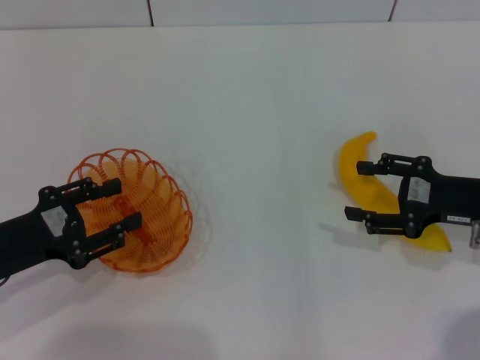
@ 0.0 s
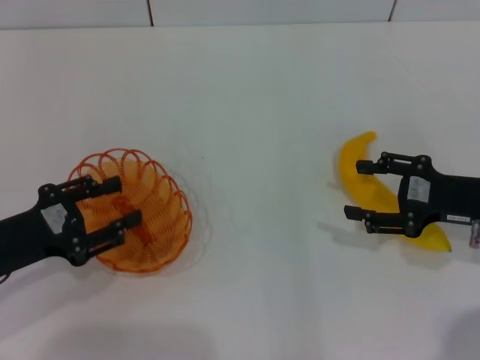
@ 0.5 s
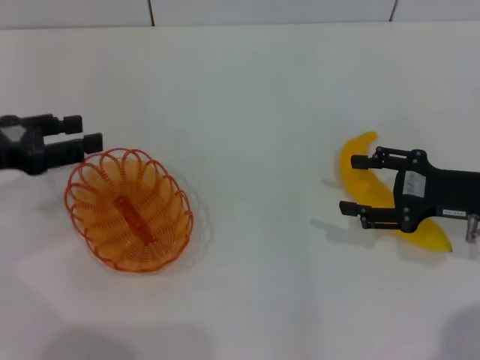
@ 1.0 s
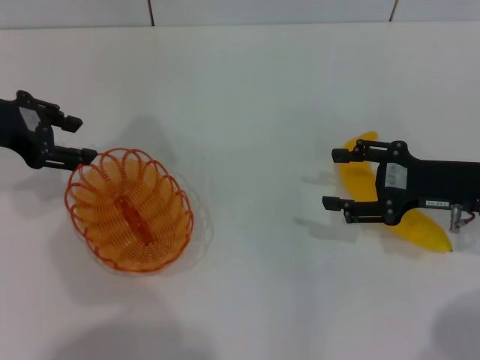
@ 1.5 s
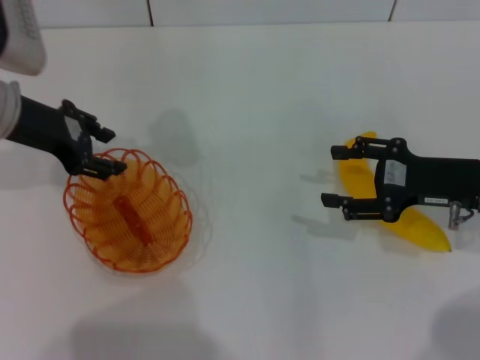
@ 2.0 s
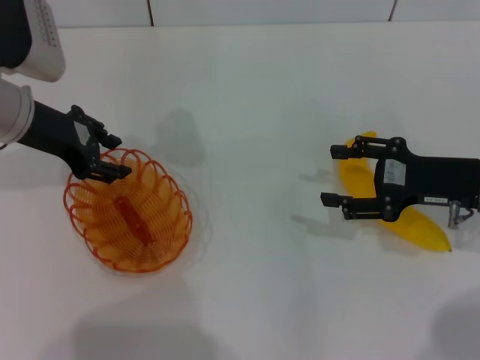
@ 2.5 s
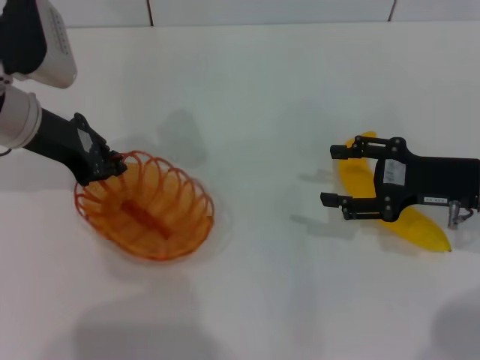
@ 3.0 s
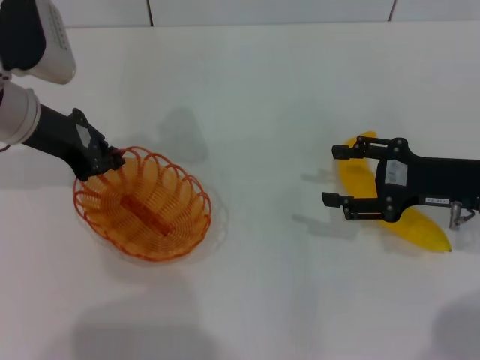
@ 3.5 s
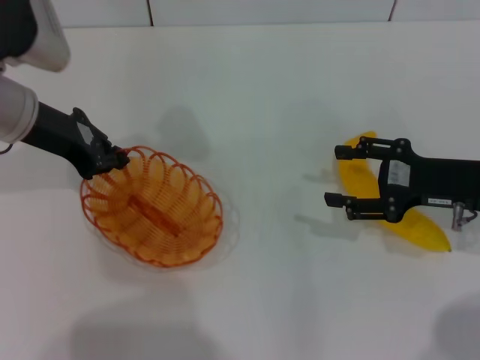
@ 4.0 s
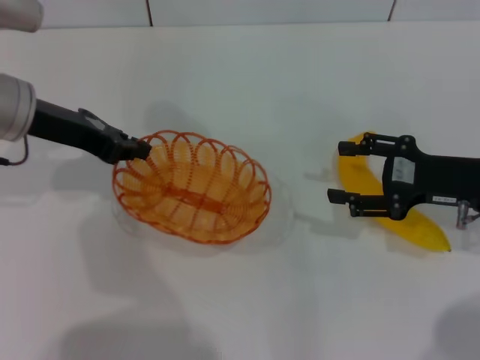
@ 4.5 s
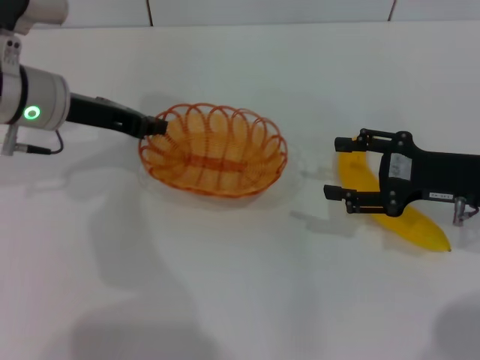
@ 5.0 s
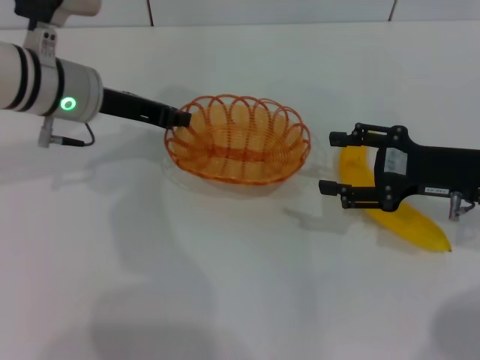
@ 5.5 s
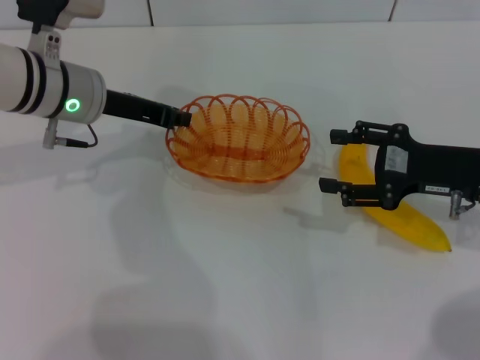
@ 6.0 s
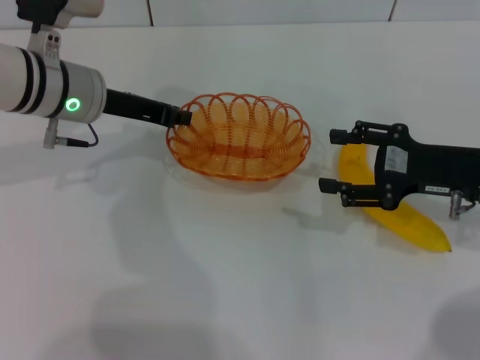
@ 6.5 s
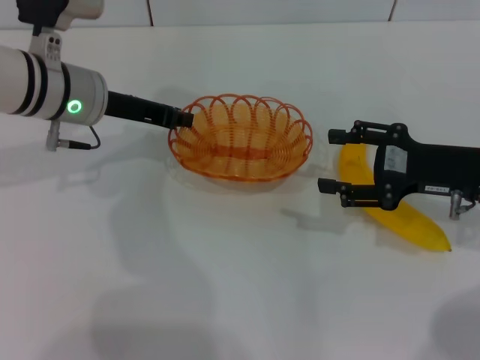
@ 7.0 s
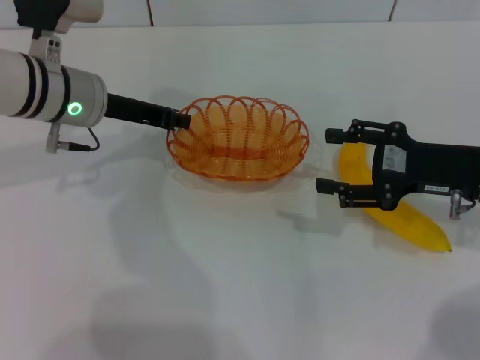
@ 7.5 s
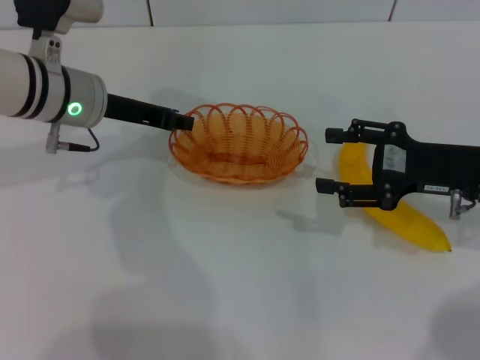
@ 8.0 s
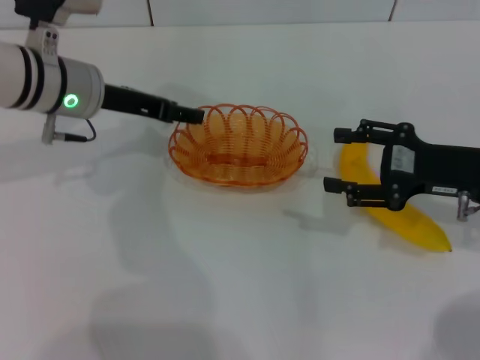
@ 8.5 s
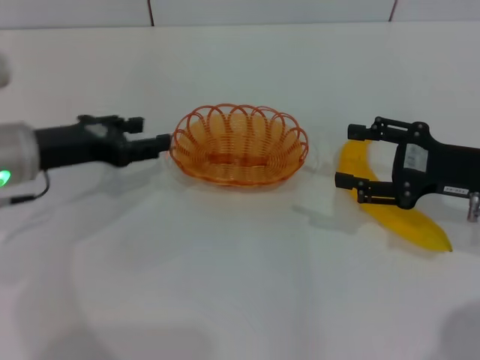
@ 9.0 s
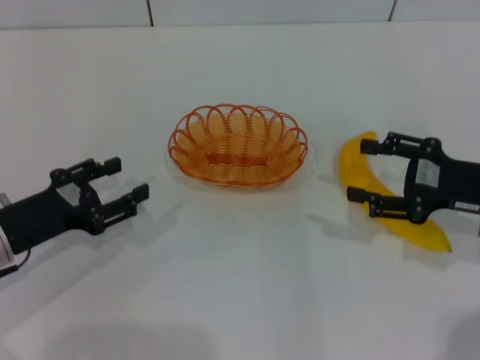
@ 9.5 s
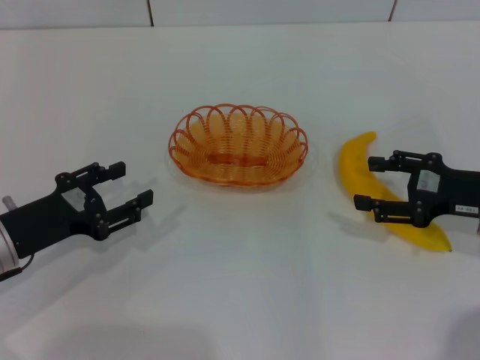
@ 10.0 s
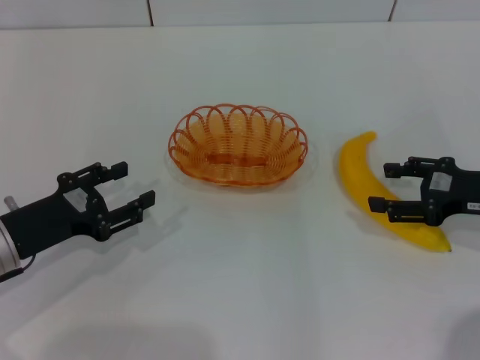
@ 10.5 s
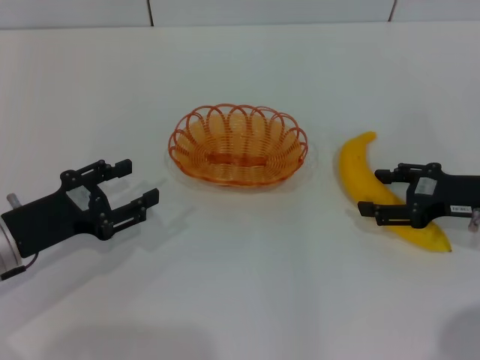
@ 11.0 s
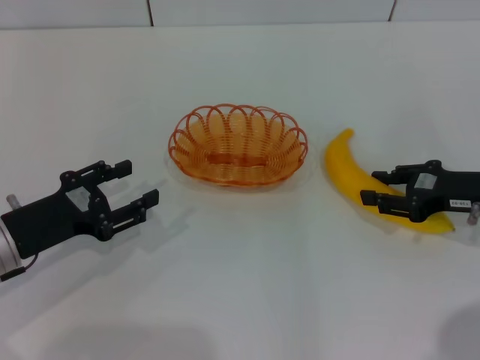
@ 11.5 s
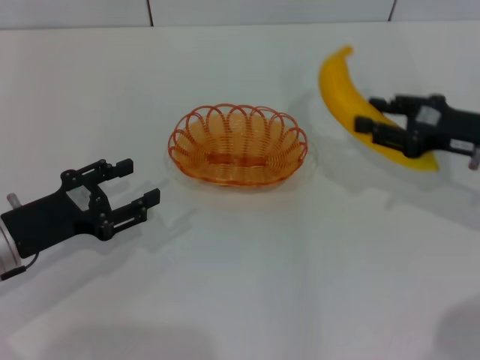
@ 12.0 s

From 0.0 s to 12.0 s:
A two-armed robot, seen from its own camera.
Step, from 0.0 s to 3.5 s: Pick up the basket with the left gripper.
Step, from 4.5 s to 8.5 s: Place the basket in the center of view with the left gripper.
Step, from 9.0 s to 11.5 s: Pick up the banana with the right gripper.
From 0.0 s to 2.0 s: The left gripper goes some 20 cm forward and upward.
From 2.0 s to 4.0 s: The left gripper closes up.
From 4.0 s to 6.0 s: The left gripper heads to the right, covering roughly 5 cm.
From 6.0 s to 8.0 s: Both grippers stay put.
From 8.0 s to 10.0 s: The left gripper moves backward, to the left and downward, approximately 20 cm, and opens up.
From 10.0 s to 12.0 s: The right gripper closes its fingers.

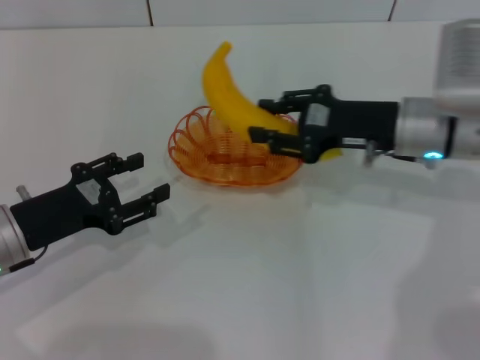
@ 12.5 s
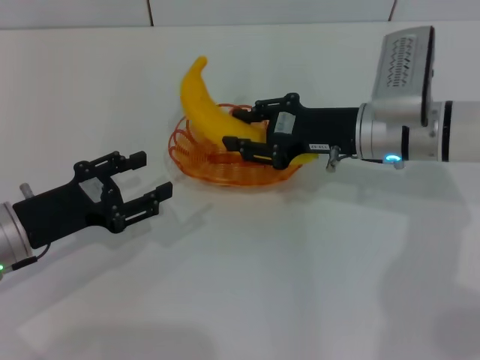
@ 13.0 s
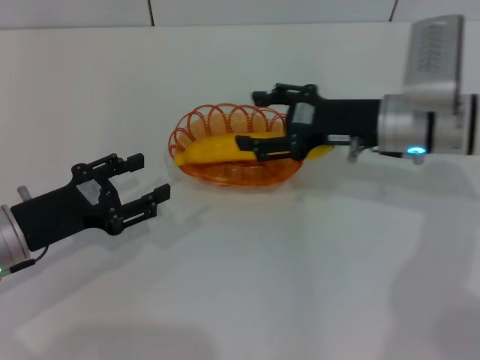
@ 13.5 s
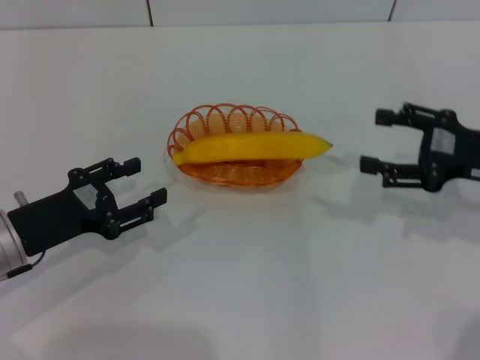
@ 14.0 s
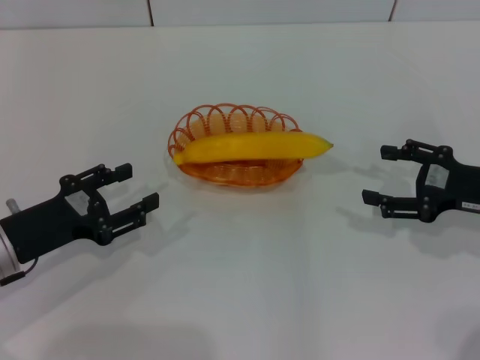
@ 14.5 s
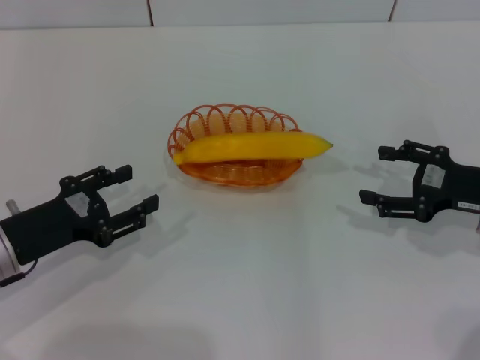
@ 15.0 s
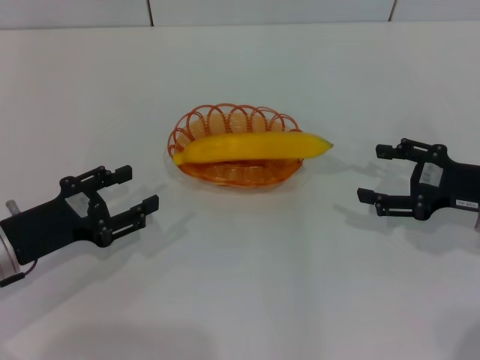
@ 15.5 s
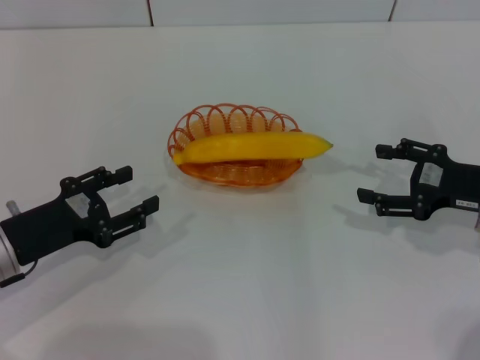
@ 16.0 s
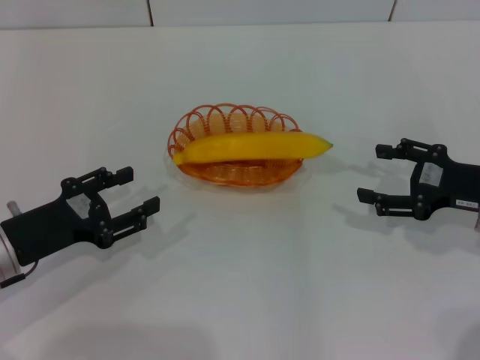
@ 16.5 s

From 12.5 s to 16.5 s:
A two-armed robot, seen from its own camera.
From 12.5 s to 14.5 s: The right gripper travels to the right and backward by about 15 cm, and opens its fingers.
From 14.5 s to 16.5 s: Both grippers stay about where they are.

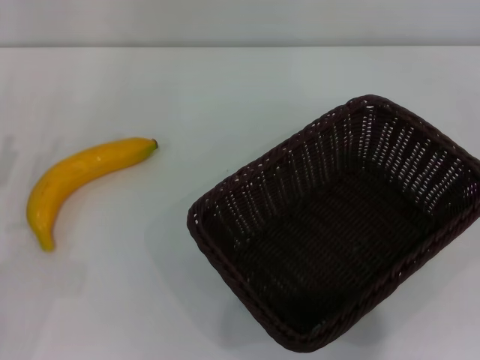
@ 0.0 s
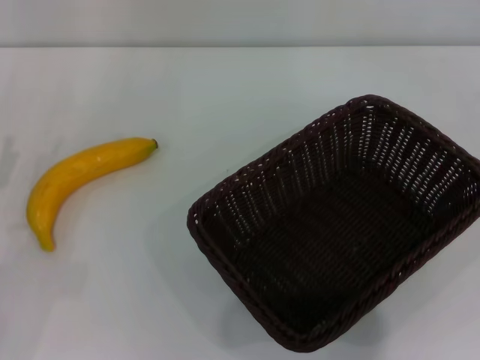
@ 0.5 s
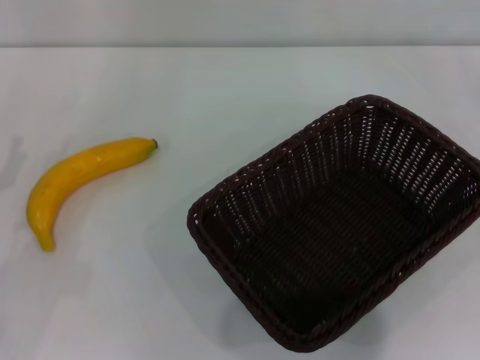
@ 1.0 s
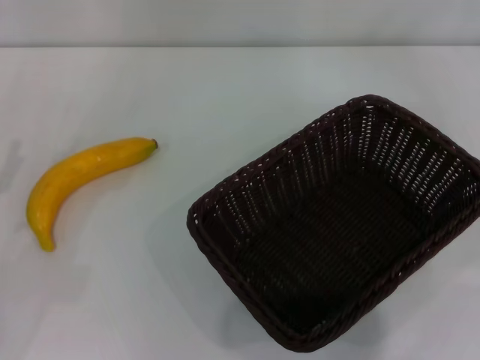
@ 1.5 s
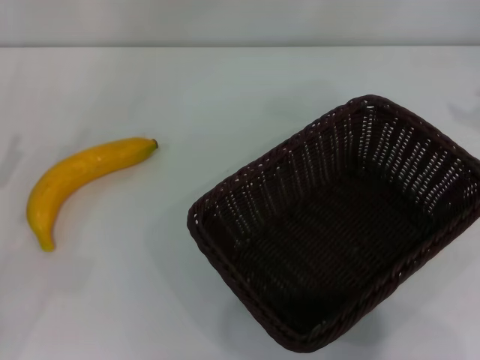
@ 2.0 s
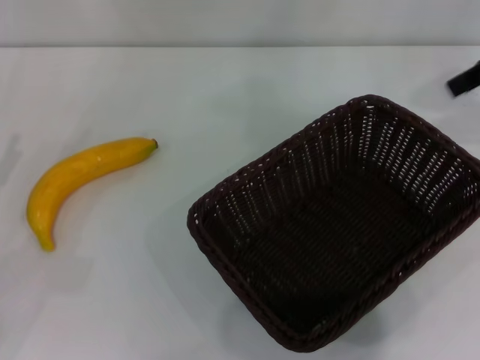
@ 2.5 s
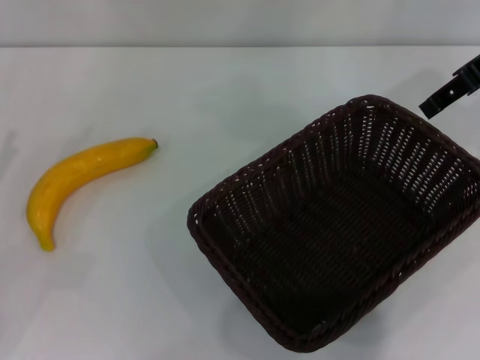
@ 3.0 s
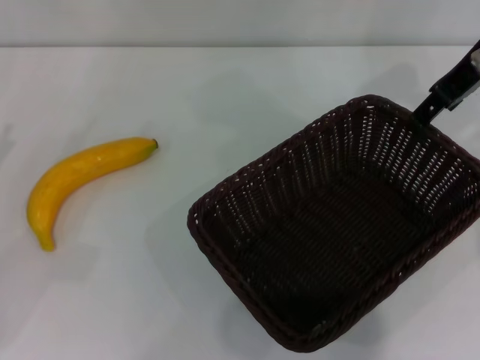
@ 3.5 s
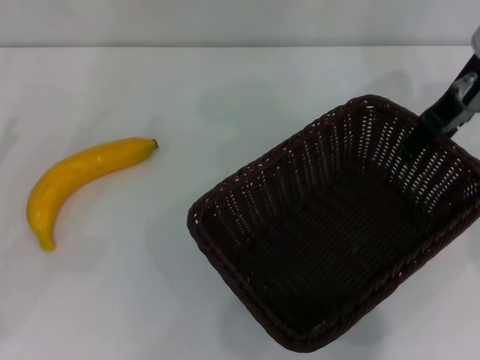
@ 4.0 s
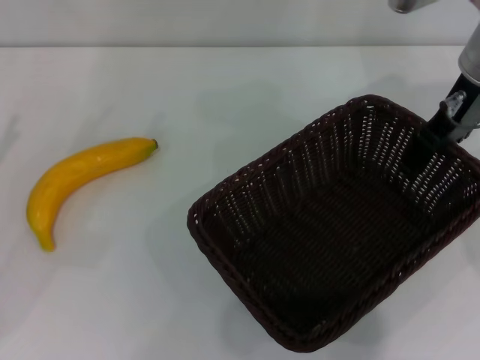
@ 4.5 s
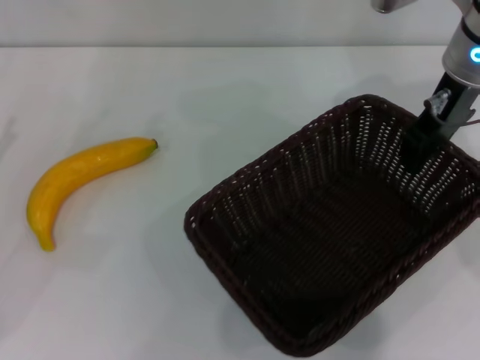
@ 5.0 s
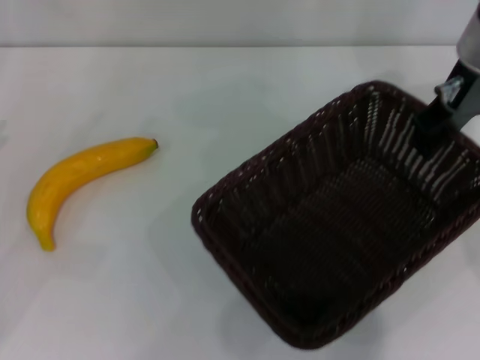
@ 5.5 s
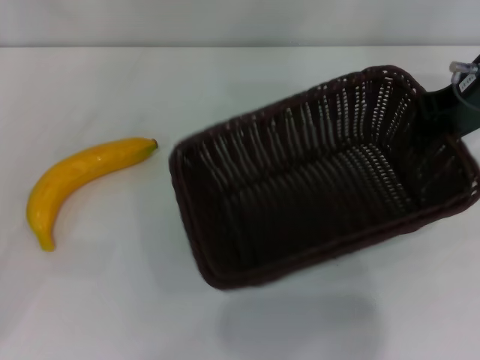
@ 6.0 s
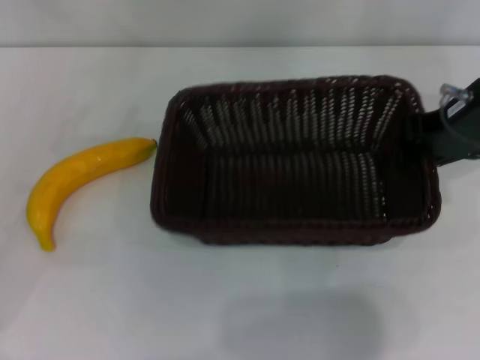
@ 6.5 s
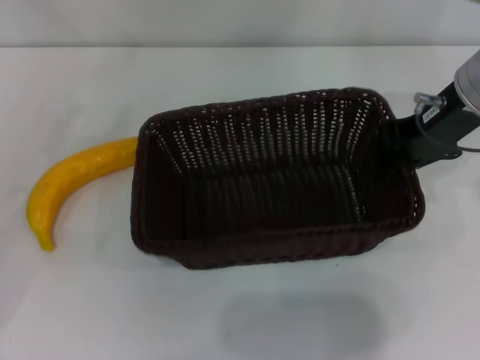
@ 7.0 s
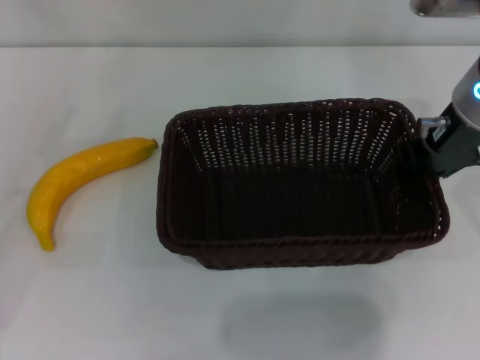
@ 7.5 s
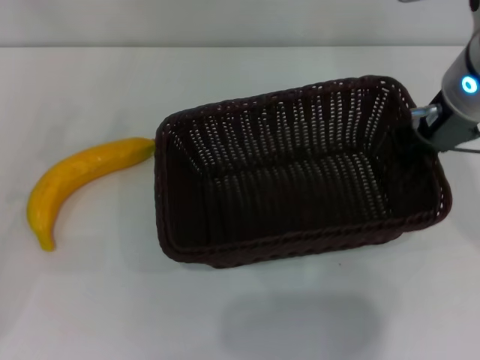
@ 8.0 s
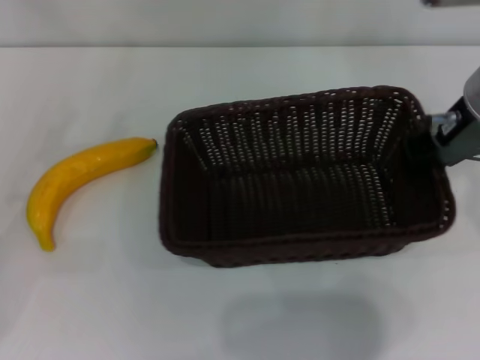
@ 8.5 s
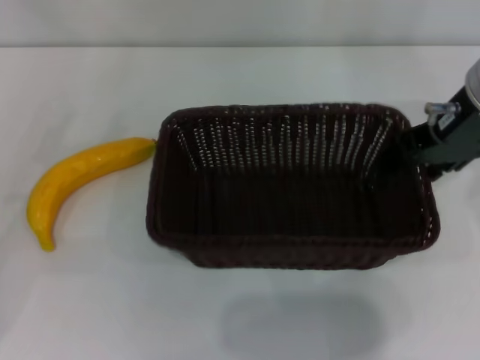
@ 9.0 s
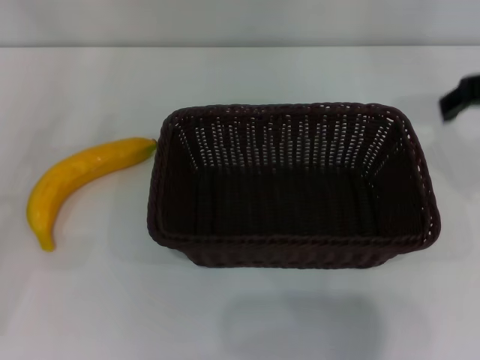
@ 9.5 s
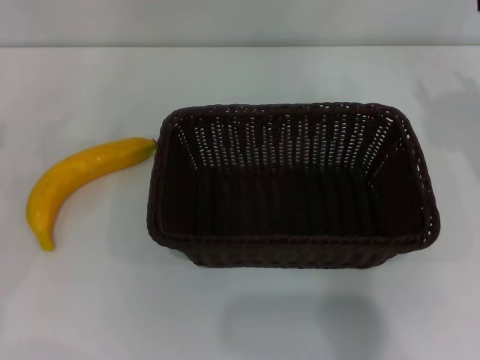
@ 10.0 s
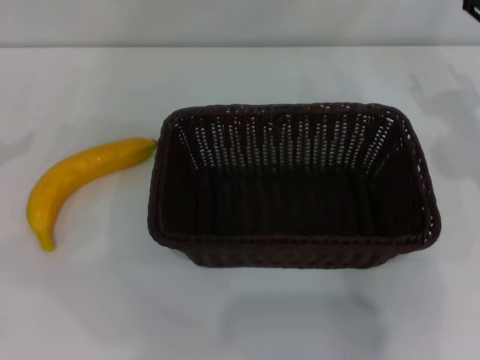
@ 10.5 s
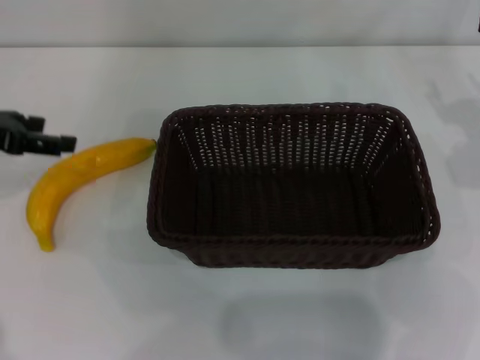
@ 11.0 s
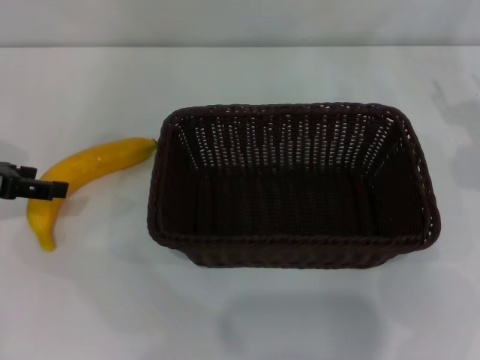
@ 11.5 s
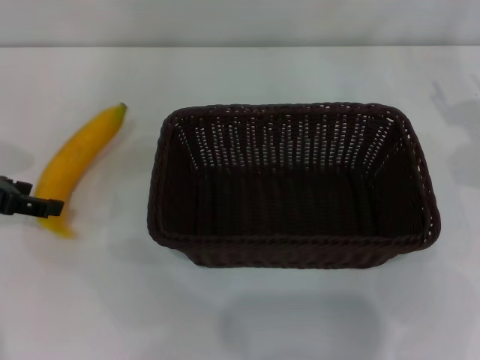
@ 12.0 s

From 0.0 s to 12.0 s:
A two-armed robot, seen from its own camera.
Step, from 0.0 s to 5.5 s: Pick up the dark basket with the right gripper.
Step, from 6.0 s to 9.0 s: Place the dark basket in the center of view with the right gripper.
From 2.0 s to 4.0 s: The right gripper shifts about 15 cm to the left and downward.
From 4.0 s to 6.0 s: The right gripper closes up.
From 6.0 s to 8.0 s: The right gripper is displaced to the left by about 5 cm.
From 8.0 s to 10.0 s: The right gripper goes approximately 10 cm to the right, and opens its fingers. Meanwhile the left gripper ends up some 5 cm from where it was.
From 10.0 s to 12.0 s: The left gripper is displaced to the right and forward by approximately 10 cm.
